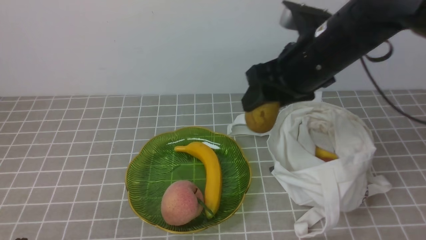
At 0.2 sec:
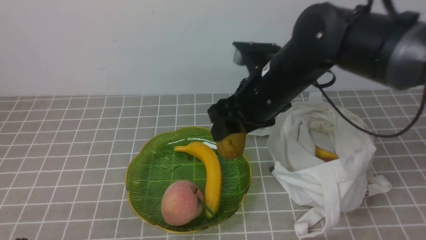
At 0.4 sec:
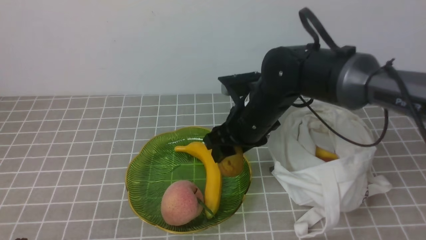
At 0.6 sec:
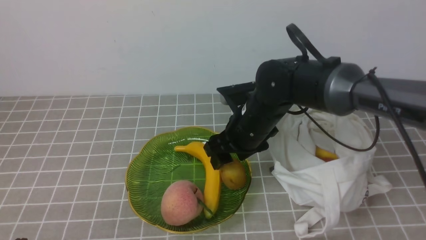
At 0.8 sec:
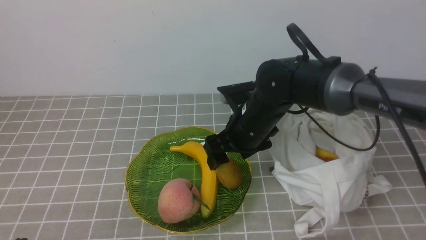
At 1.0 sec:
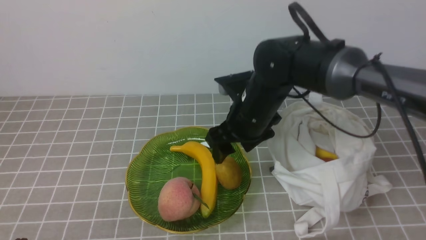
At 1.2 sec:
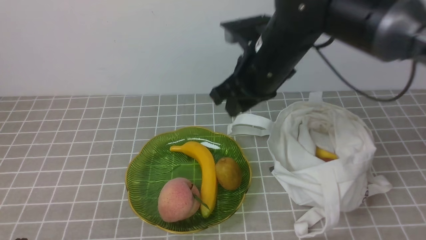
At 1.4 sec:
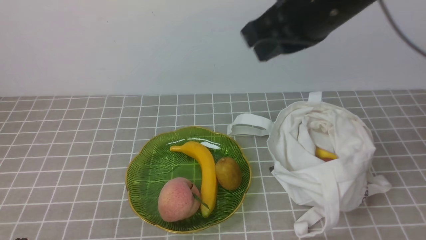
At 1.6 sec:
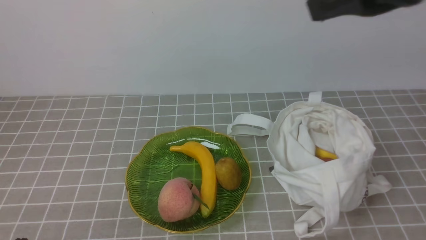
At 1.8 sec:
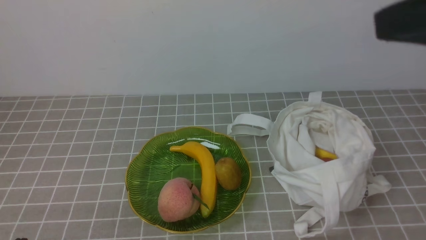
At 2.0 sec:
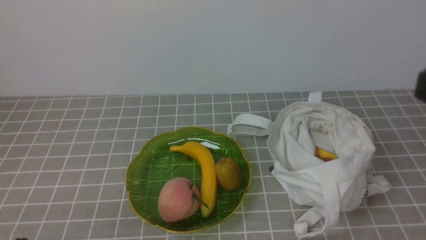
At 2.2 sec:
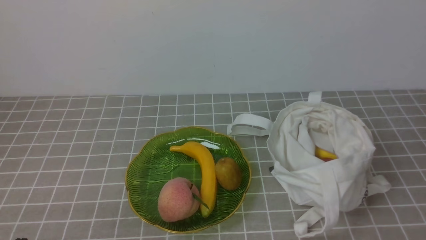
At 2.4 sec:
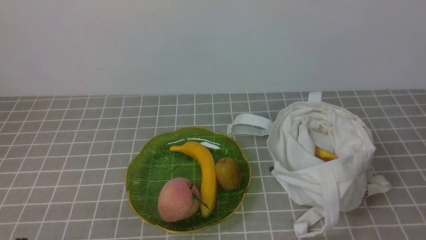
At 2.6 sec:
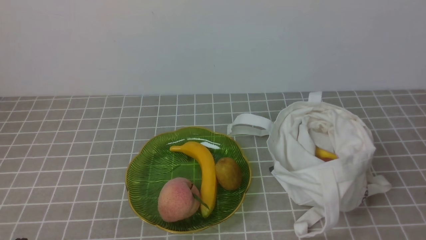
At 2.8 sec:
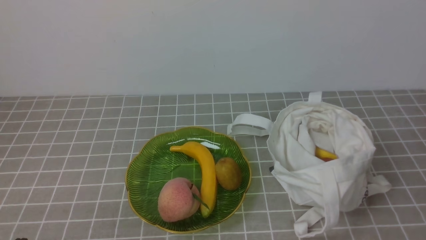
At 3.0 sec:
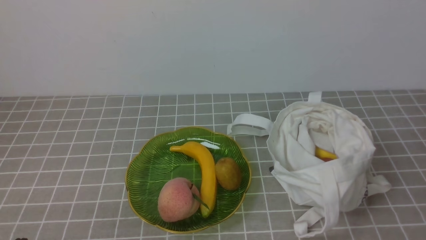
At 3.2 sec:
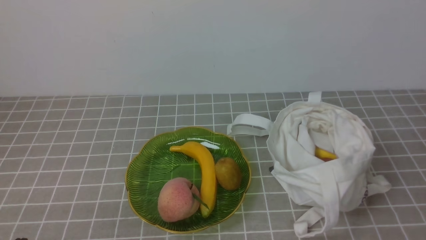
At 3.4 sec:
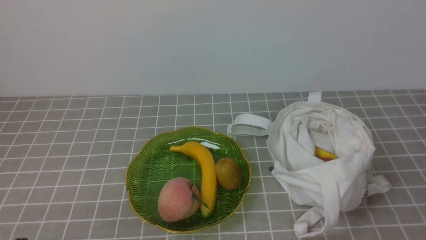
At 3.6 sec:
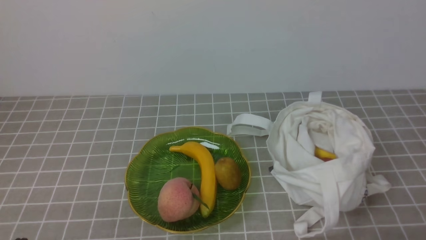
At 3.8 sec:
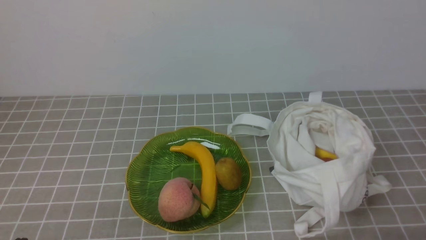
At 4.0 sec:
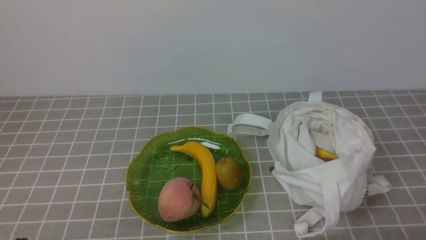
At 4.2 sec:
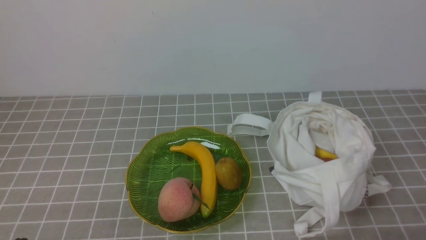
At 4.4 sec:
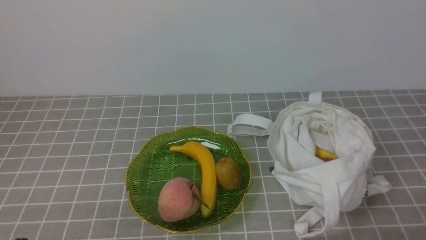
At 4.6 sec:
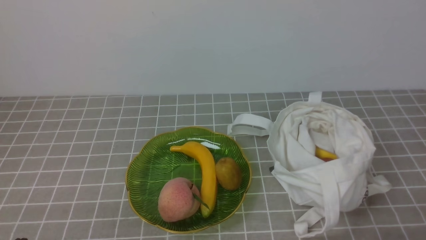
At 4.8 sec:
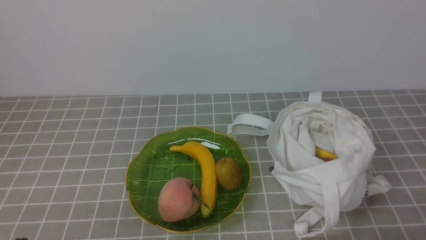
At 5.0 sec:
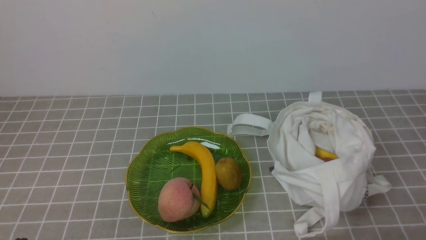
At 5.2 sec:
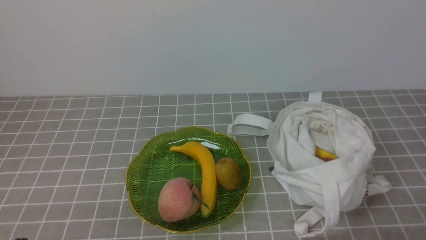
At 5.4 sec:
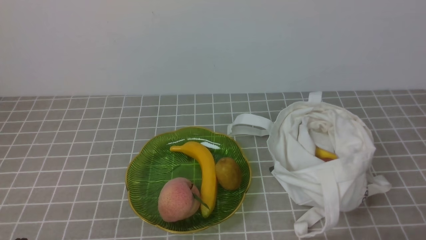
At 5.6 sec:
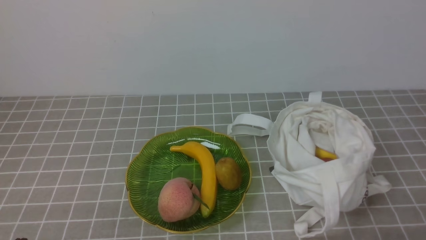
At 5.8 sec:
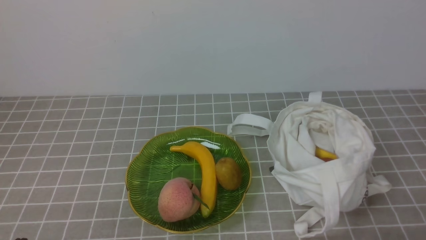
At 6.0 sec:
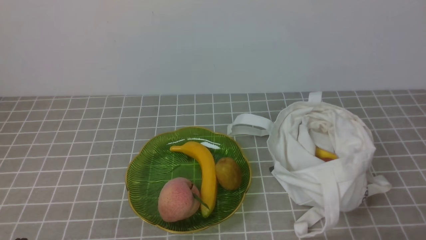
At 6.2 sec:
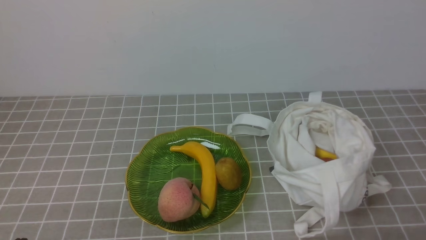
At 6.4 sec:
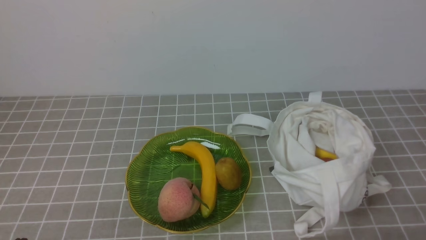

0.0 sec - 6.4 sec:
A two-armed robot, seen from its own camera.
Step, 0.0 sec - 0.8 sec: use the right arm to put the kiwi into the empty plate on the left.
0.0 sec - 1.6 sec: The right gripper moves upward and backward, about 20 cm, and closes.
1.6 sec - 3.2 sec: The right gripper travels downward, backward and to the right by approximately 25 cm.
4.8 sec - 6.4 sec: Both grippers stay put.
